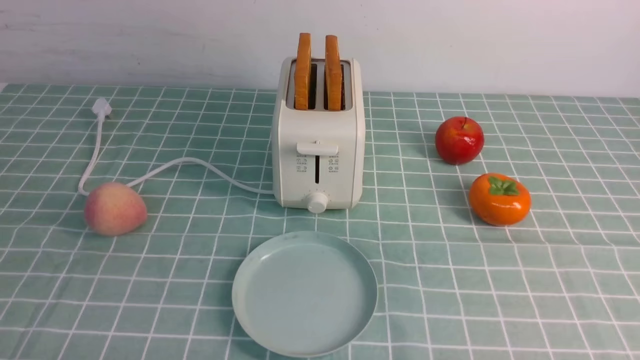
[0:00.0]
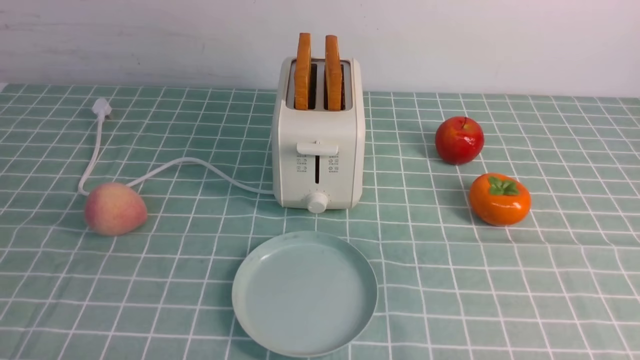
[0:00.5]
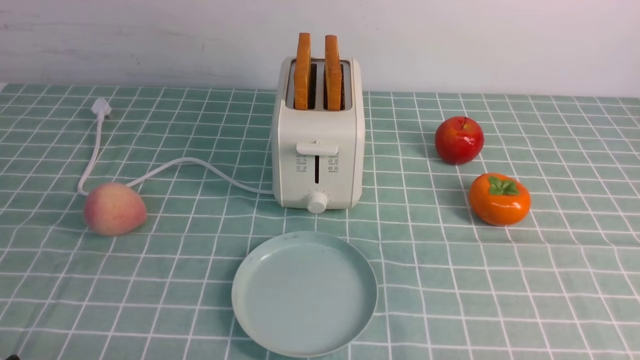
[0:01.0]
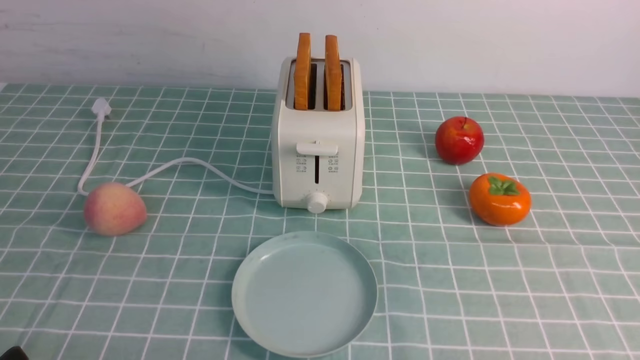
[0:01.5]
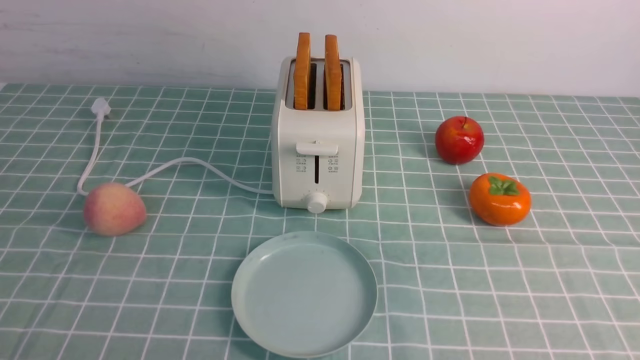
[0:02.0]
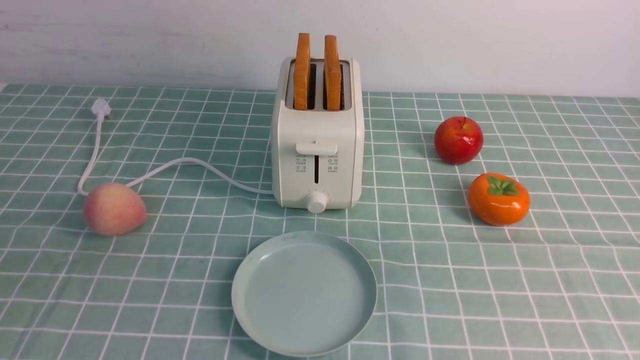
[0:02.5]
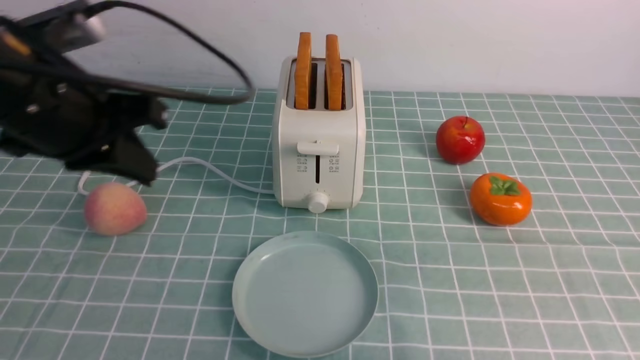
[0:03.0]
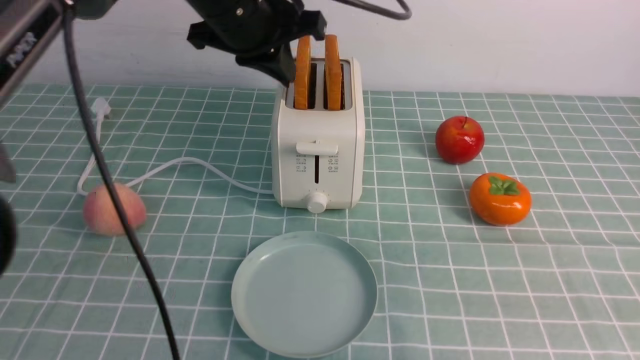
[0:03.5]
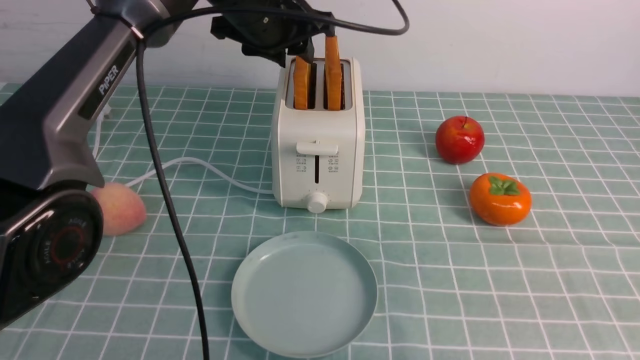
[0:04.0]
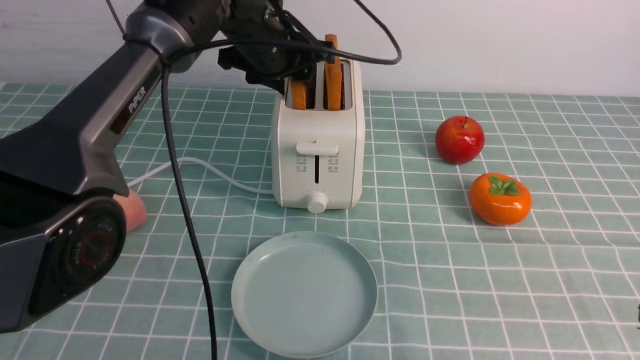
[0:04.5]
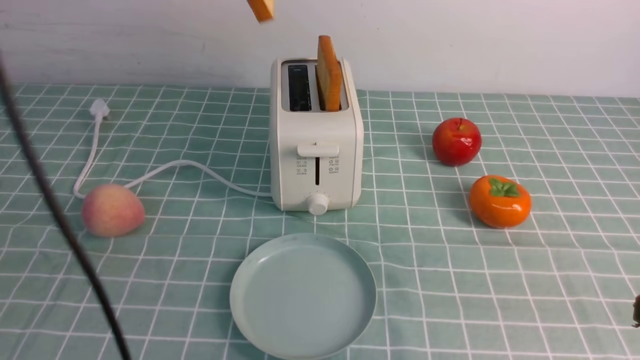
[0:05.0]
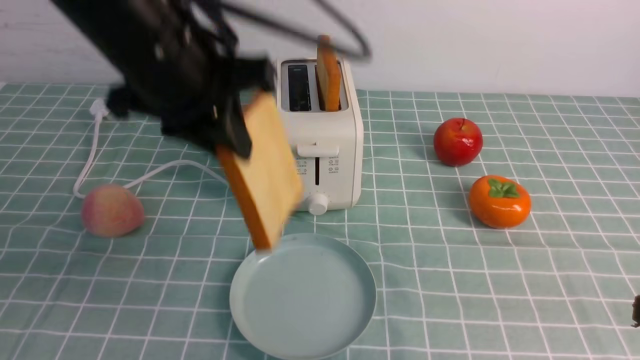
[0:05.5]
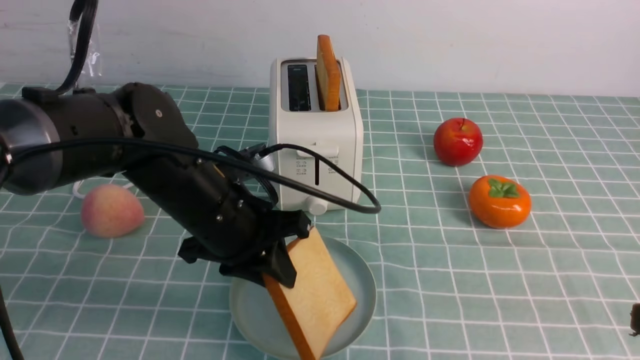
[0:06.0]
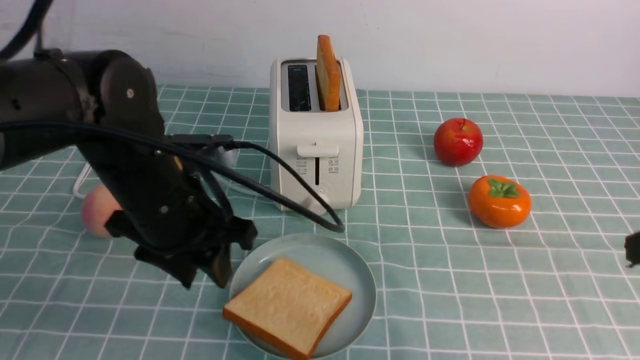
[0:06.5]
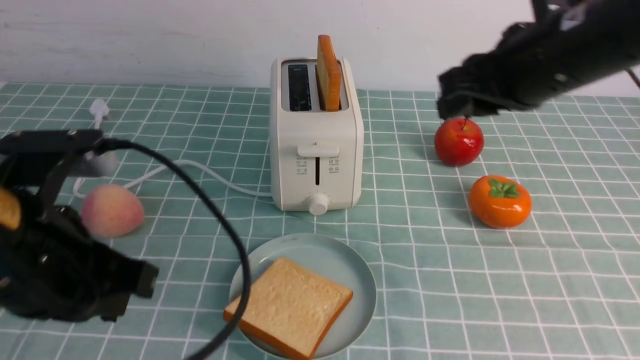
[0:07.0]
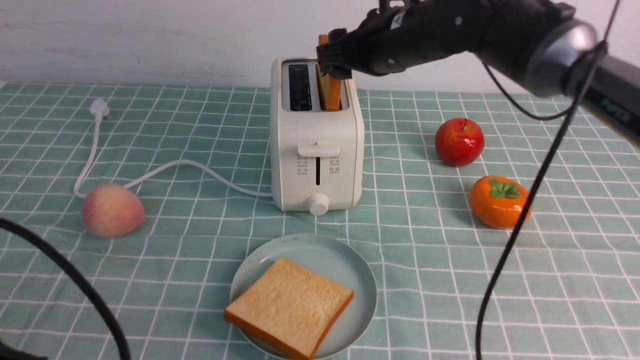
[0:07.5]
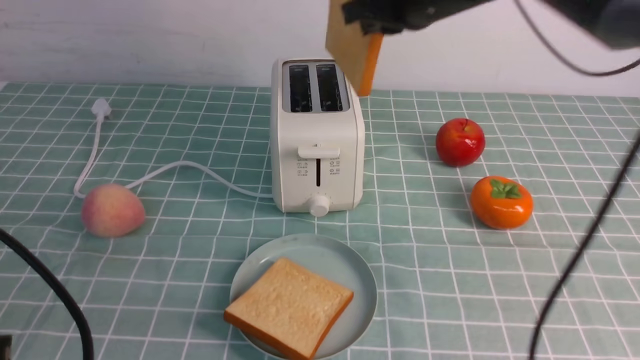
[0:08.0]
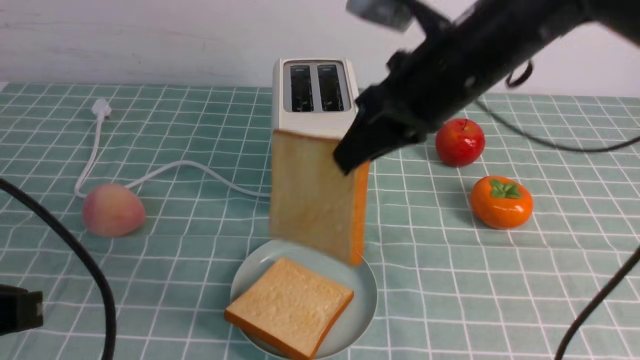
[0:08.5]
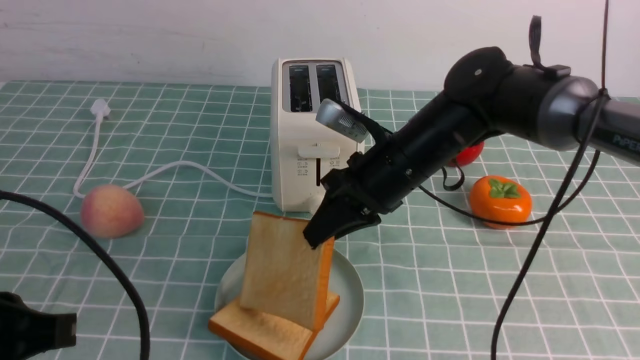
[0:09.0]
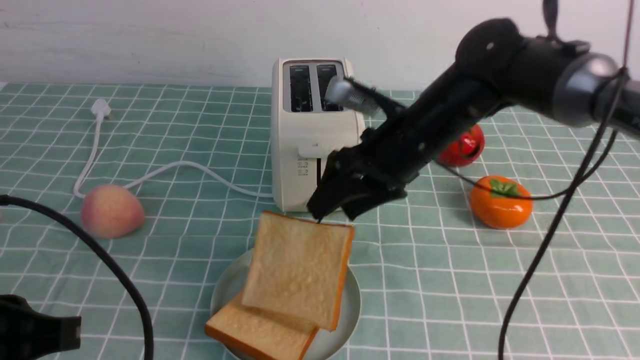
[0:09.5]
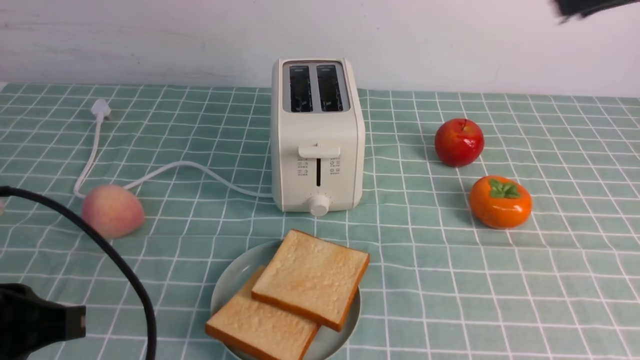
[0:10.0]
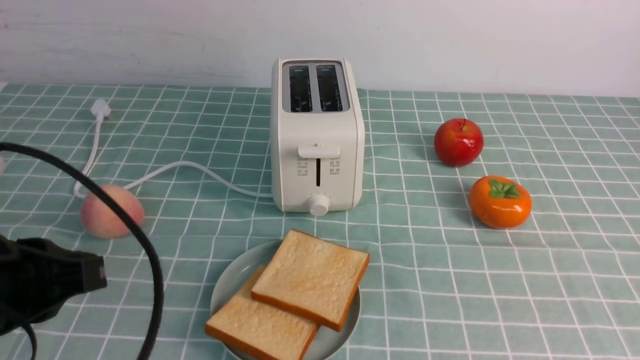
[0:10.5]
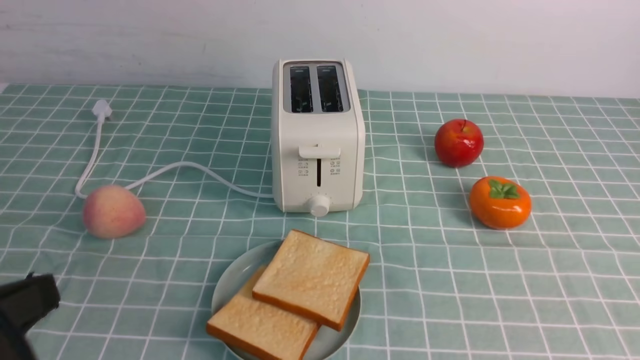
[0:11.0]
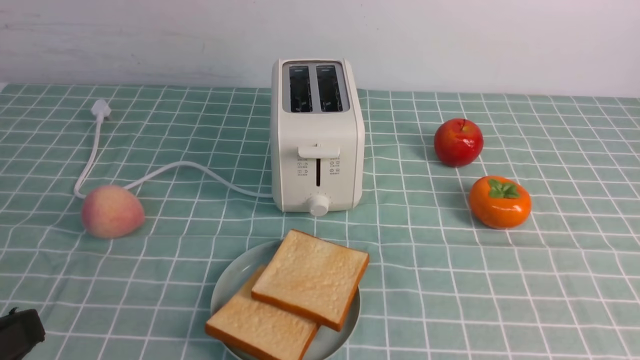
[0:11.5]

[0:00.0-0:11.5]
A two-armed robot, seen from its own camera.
Task of the whole recording: take toasted bread from bread machine on blue coffee table place on plate.
Step, 0:00.0 to 0:05.0: use the left arm to take out a slice of bread.
Step, 0:05.5 to 0:06.5: use the left arm to put a slice of bread into the empty plate.
Step, 0:07.0 to 0:08.0: use the right arm to take out a slice of bread.
Step, 0:08.5 to 0:09.5: use the right arm to put a slice of bread into the plate.
0:02.0 to 0:04.0: The right gripper goes some 10 cm forward and upward, and closes its fingers; the left gripper moves forward and to the right, some 50 cm, and opens up.
0:04.0 to 0:06.0: The left gripper moves backward and downward, approximately 20 cm, and closes up.
0:06.0 to 0:07.5: The right gripper travels forward and to the left by some 40 cm, and opens up, while the left gripper travels backward and to the left by some 25 cm, and closes.
0:07.5 to 0:09.5: The right gripper swings up and down, some 15 cm each way, with 2 reversals, and closes, then reopens.
0:09.5 to 0:11.5: The right gripper moves backward and to the right, roughly 40 cm, and closes; the left gripper goes about 5 cm backward.

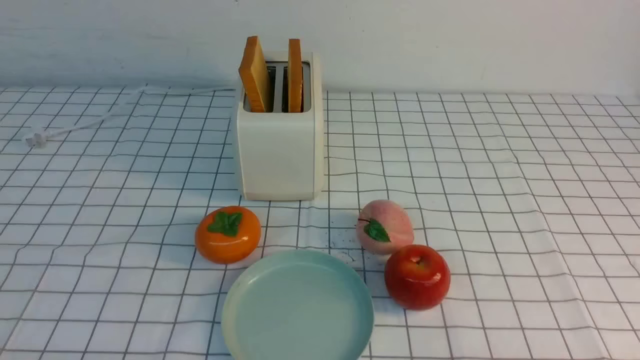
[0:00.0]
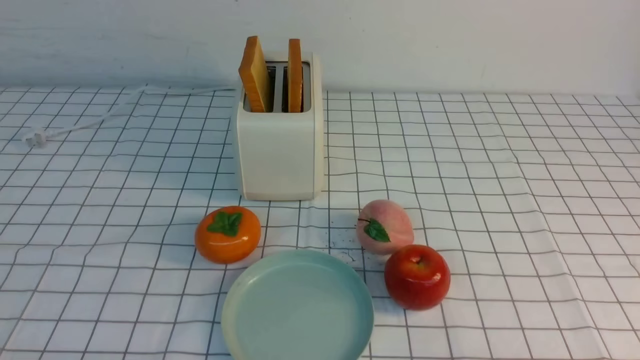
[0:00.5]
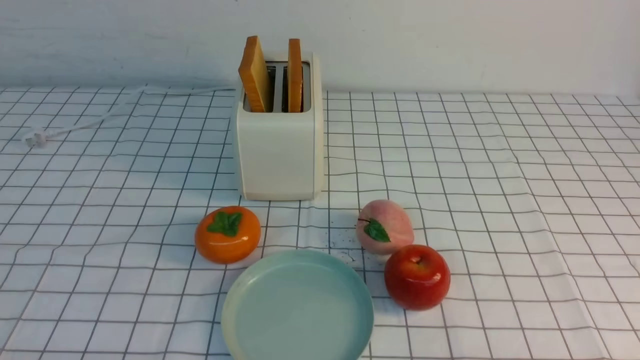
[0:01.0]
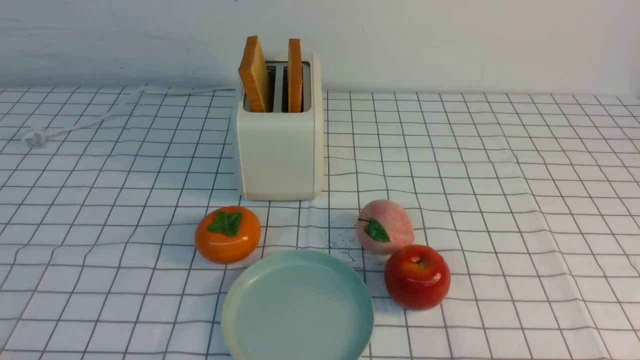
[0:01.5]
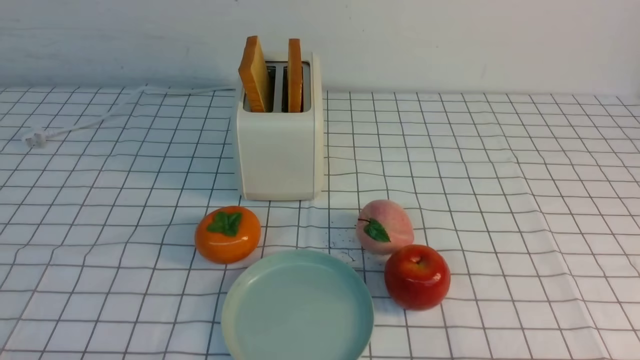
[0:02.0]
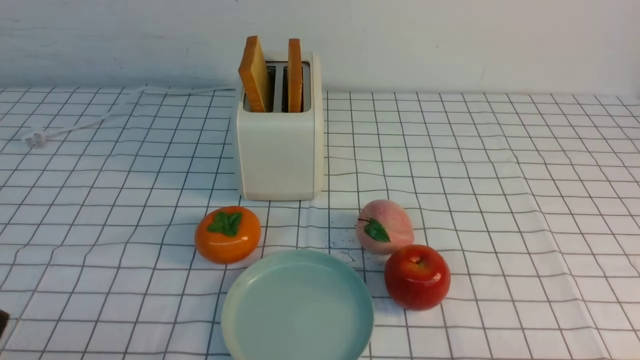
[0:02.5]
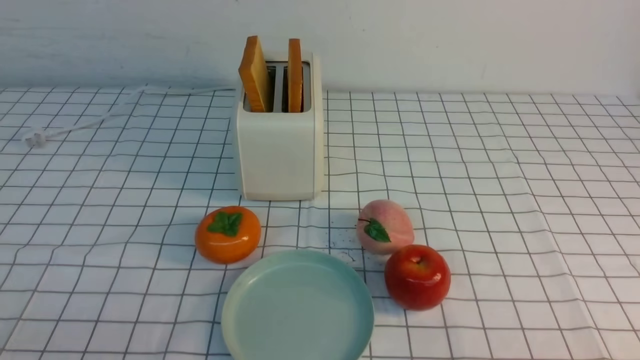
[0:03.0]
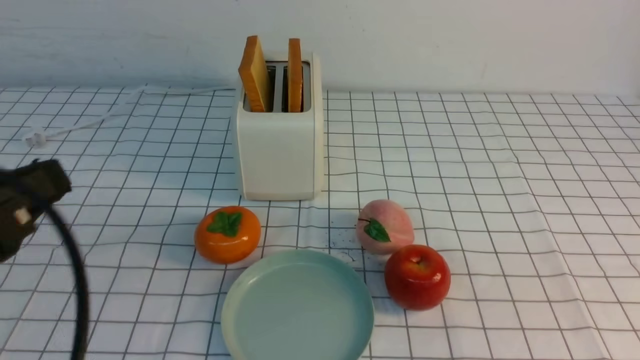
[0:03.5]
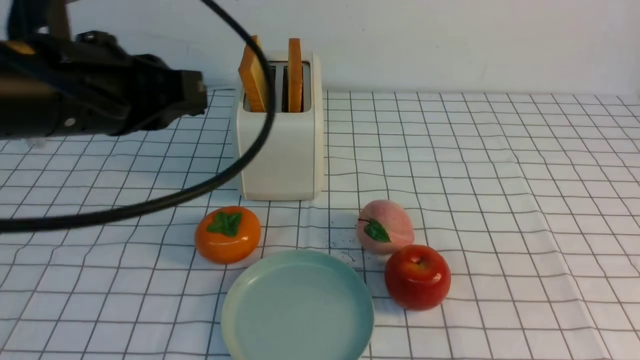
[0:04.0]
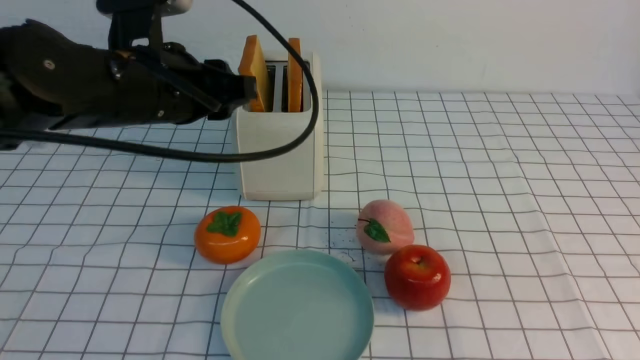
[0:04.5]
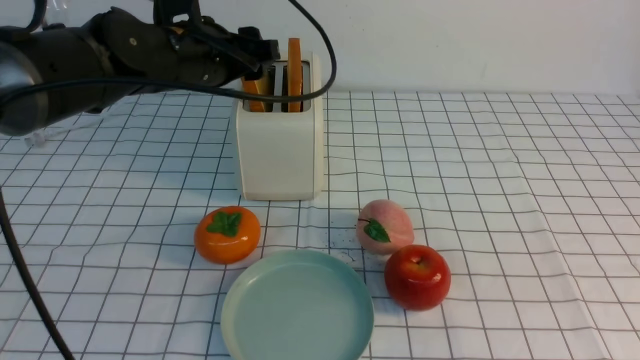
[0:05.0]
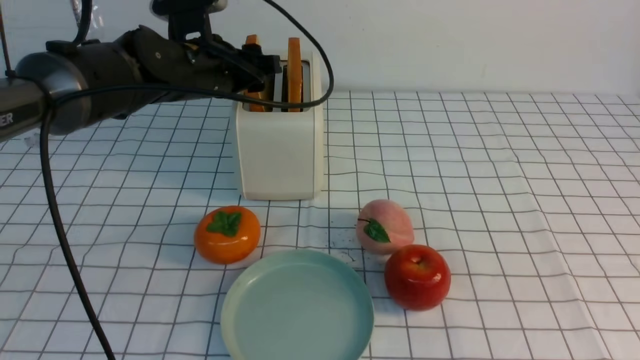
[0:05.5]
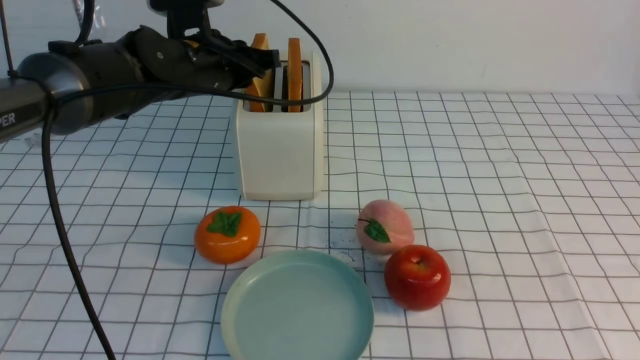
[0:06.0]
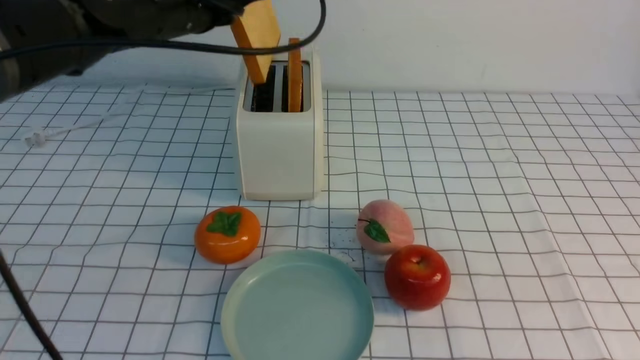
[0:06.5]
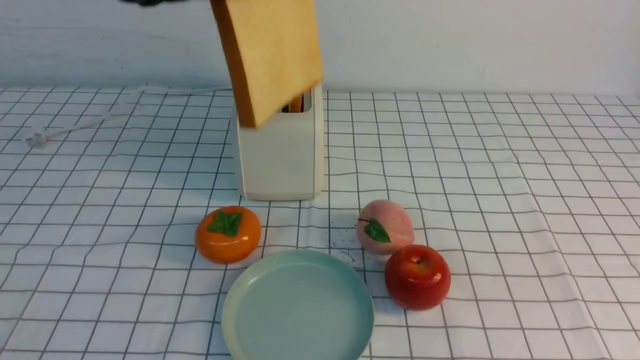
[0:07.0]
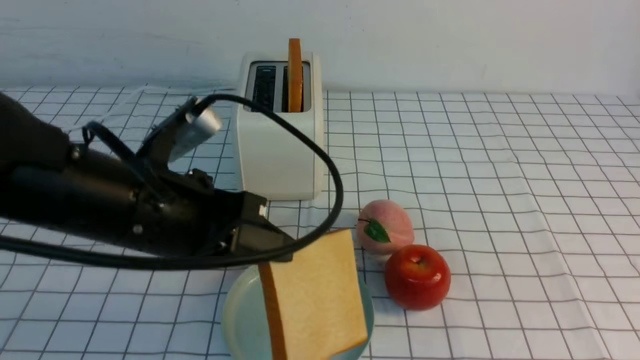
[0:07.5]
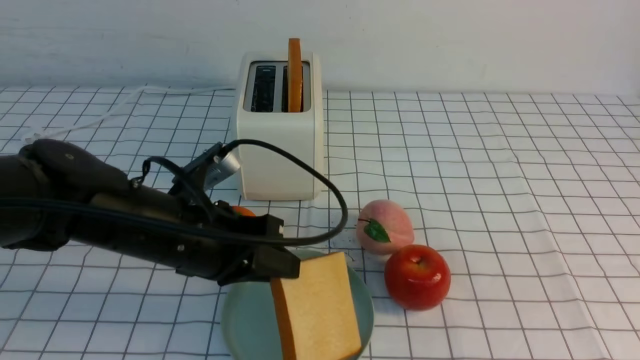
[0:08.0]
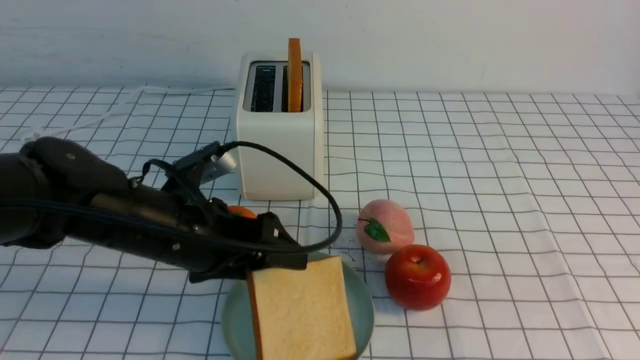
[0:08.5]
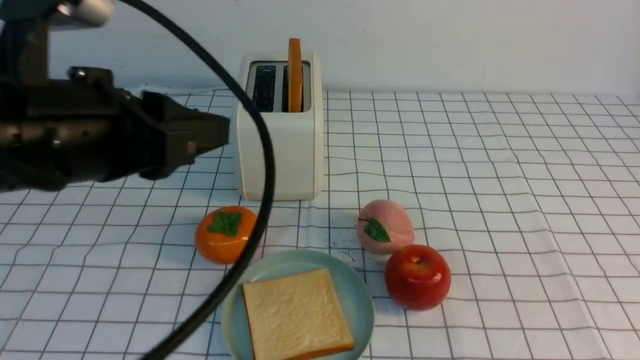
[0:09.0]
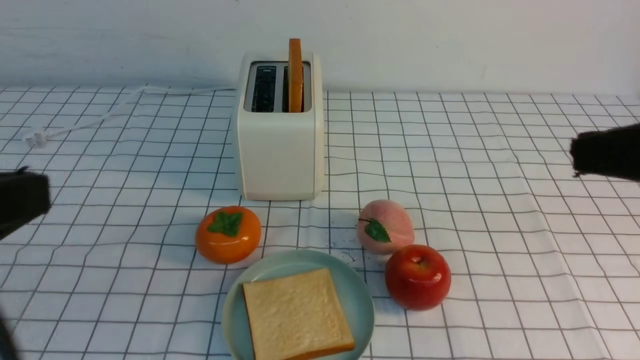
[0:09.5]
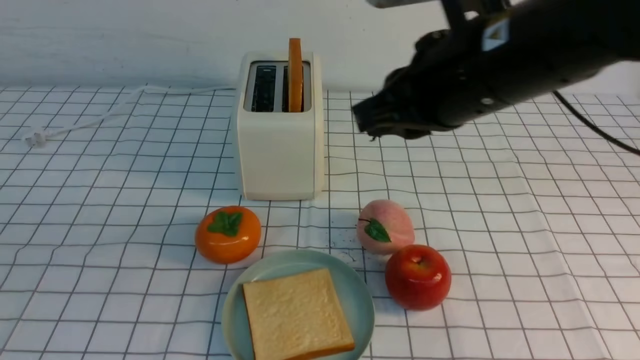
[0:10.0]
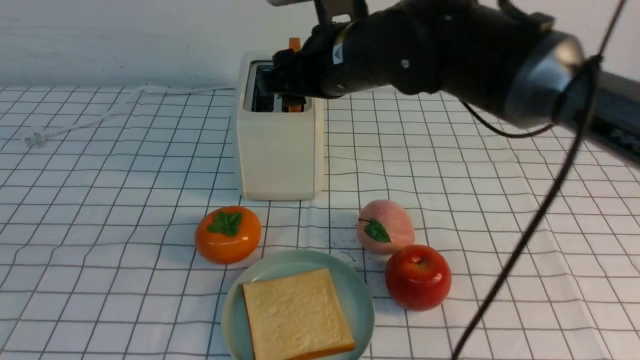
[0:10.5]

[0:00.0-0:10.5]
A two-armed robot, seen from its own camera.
Task of the whole recording: take toasted bread from bread machine on white checkered table place on plate.
Step, 0:00.0 to 0:06.0: use the left arm to take out a slice of bread.
Step, 0:06.5 to 0:08.5: use the left arm to put a slice of bread into the empty plate.
0:00.0 to 0:02.0: Both grippers stay about where they are.
0:02.0 to 0:04.0: The right gripper travels upward by about 20 cm, and closes its fingers; the left gripper heads forward and upward, covering about 30 cm, and closes its fingers.
0:04.0 to 0:06.5: The left gripper is displaced forward by roughly 15 cm, and opens, then closes once more.
0:06.5 to 0:08.5: The left gripper shifts about 20 cm downward and backward, and opens up.
0:08.5 to 0:10.5: The left gripper heads backward, upward and to the left, covering roughly 30 cm, and closes its fingers. Meanwhile the right gripper is displaced forward and to the left by roughly 40 cm, and opens.
